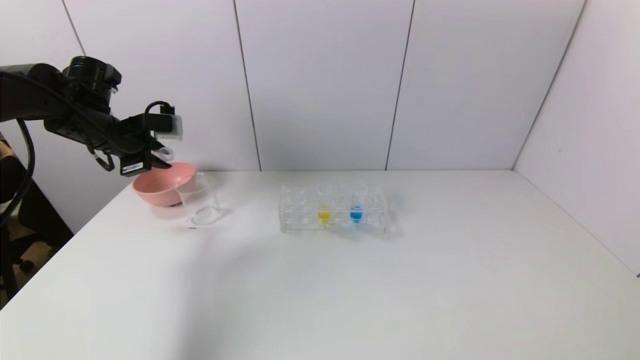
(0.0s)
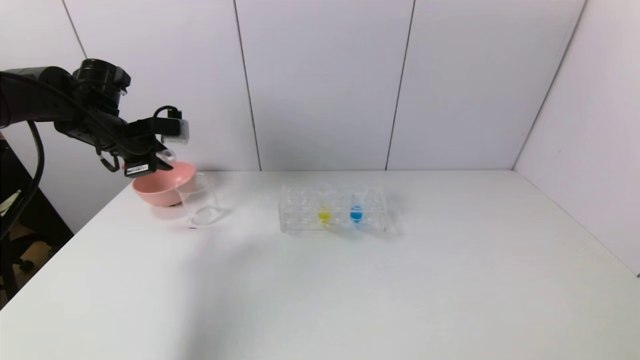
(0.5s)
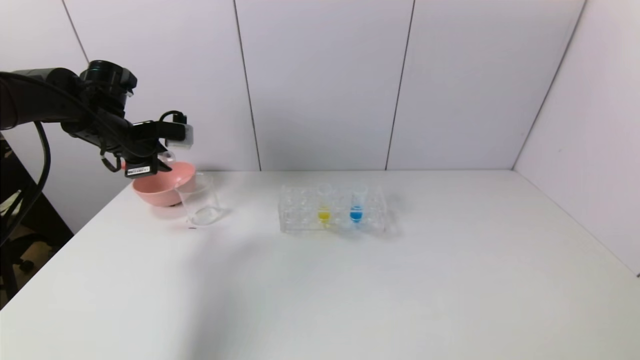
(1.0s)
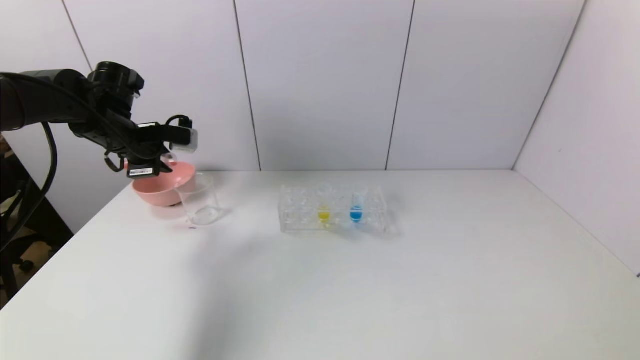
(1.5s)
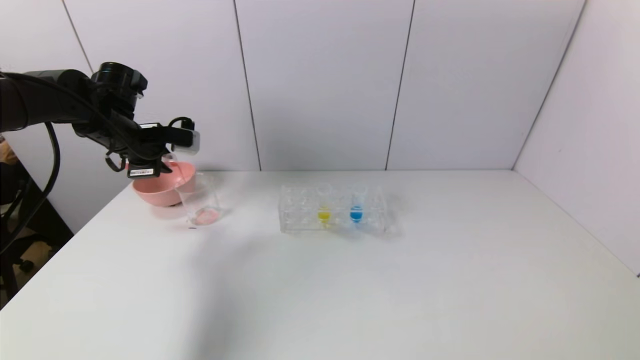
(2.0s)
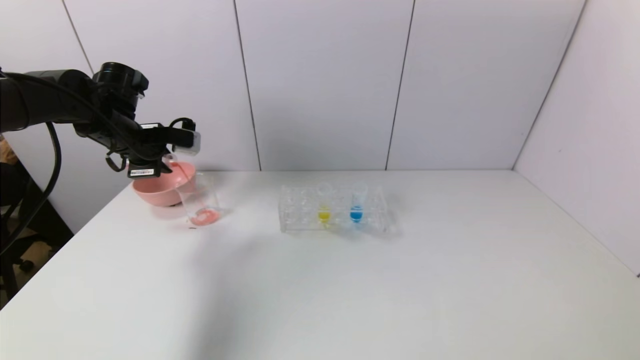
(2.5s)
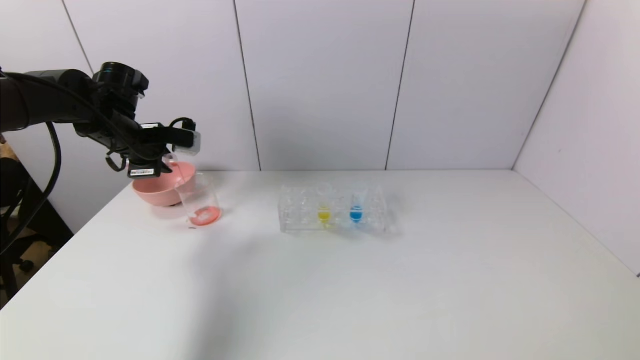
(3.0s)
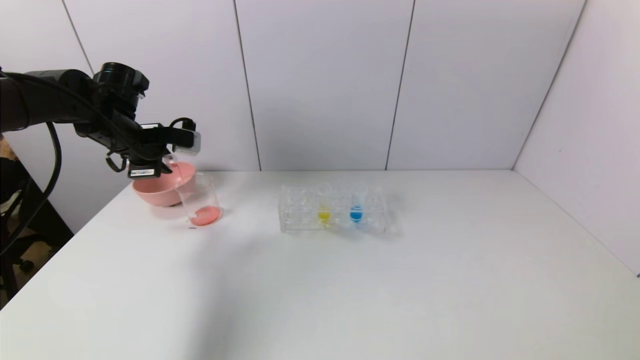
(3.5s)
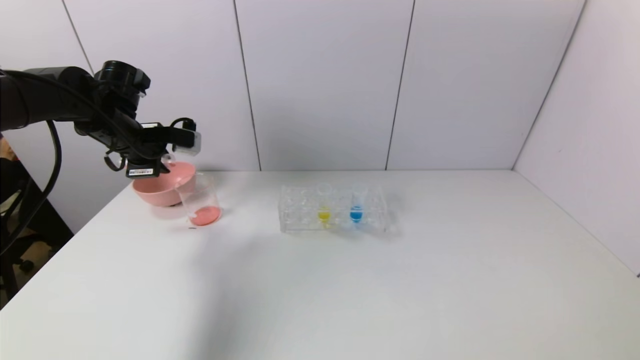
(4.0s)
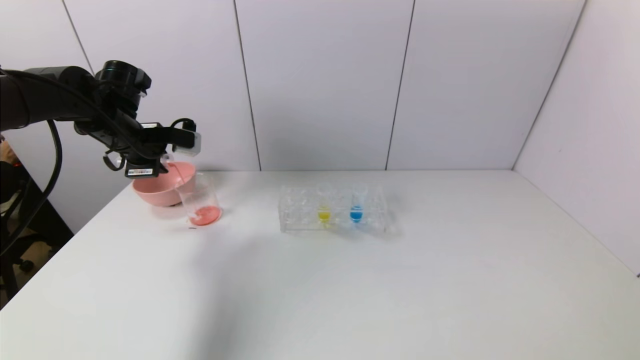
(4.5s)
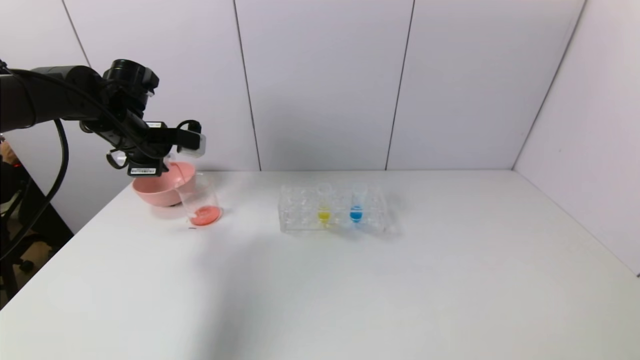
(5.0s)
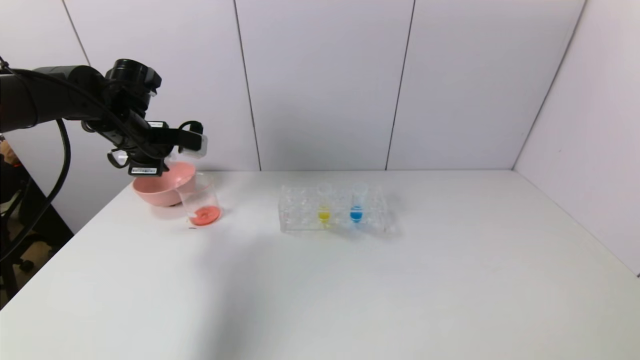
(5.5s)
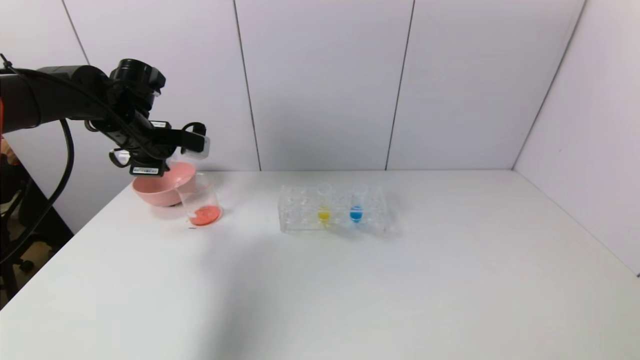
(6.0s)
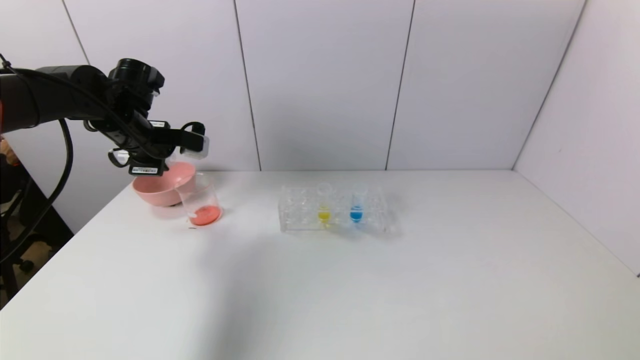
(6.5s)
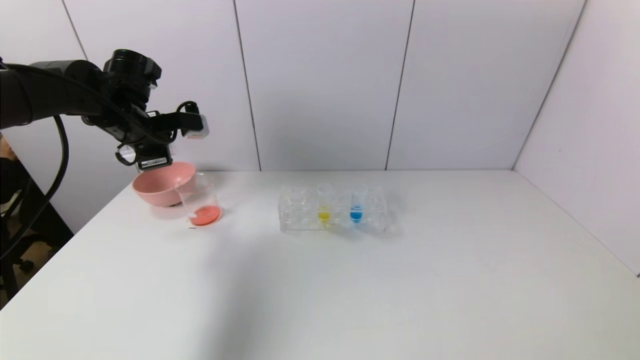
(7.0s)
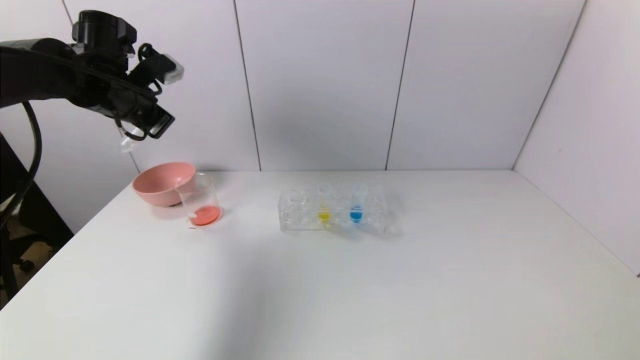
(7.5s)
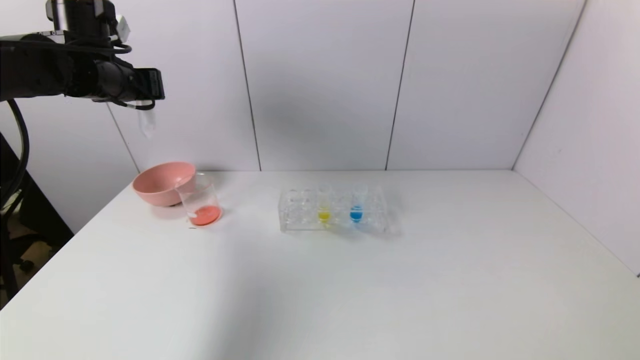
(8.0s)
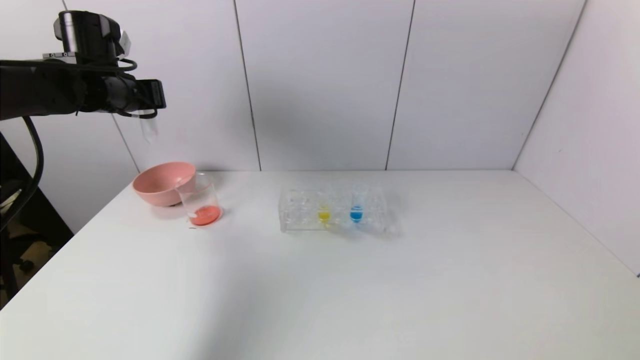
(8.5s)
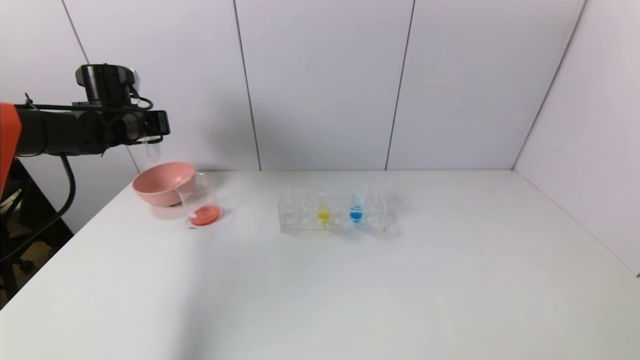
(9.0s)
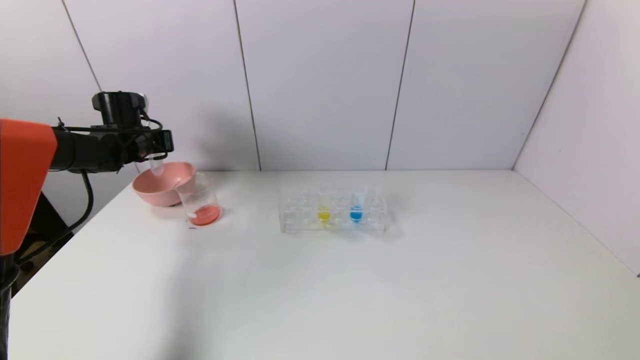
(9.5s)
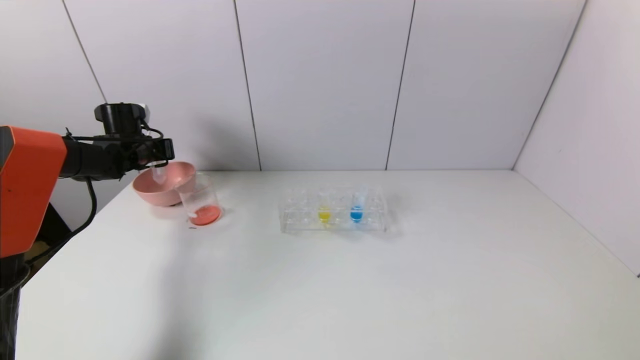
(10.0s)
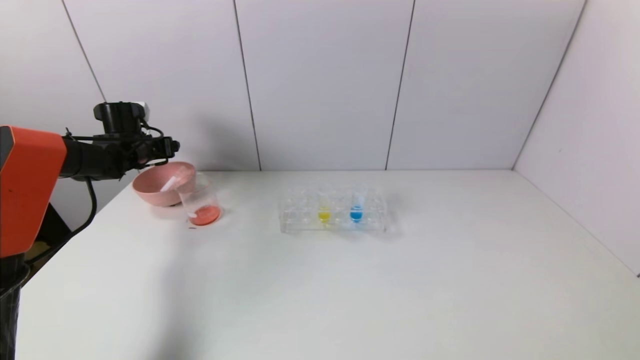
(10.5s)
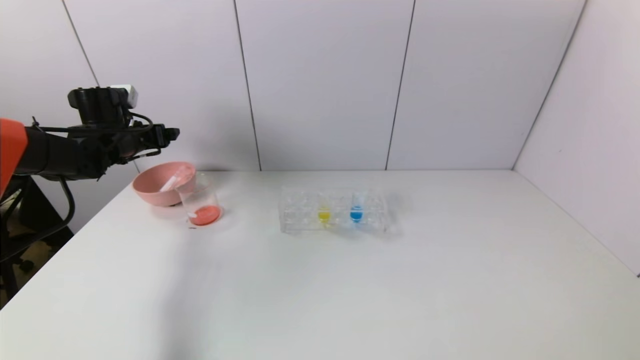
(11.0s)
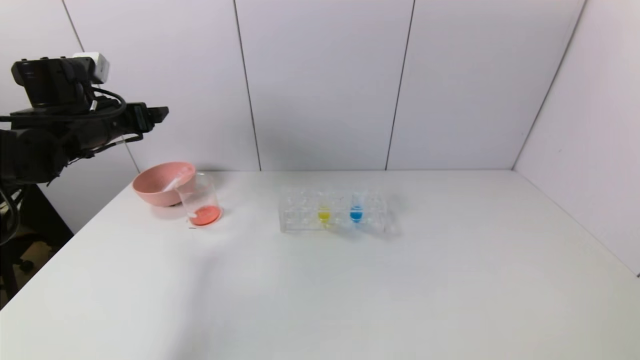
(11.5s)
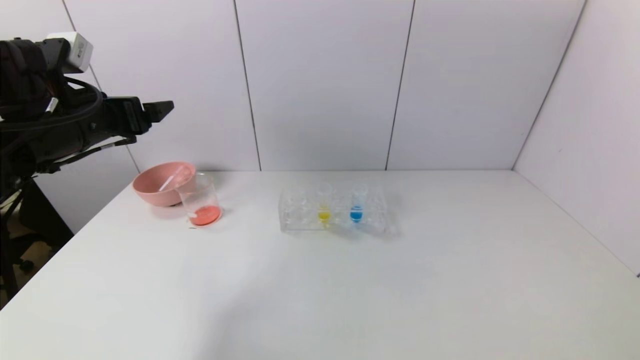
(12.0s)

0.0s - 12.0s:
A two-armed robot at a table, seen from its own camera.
Task of the whole recording: pick up the test tube with red pigment and the test tube with blue pigment by grippers and pour them into the container.
Step, 0.0s - 7.0s: Pour the red reagent into the graduated cylinder with the left gripper.
Step, 7.5s - 11.0s: Place the test tube into the bowl with the left gripper.
0.0s - 2.0s: The grippers move only a little.
2.0s - 4.0s: Neither gripper changes place.
4.0s - 6.0s: The grippers move only a little.
6.0s - 8.0s: The left gripper heads upward, covering roughly 10 cm.
8.0s - 10.0s: The left gripper goes some 20 cm downward, forward and to the left.
10.0s - 12.0s: The left gripper moves backward, upward and to the right, roughly 25 cm, and opens.

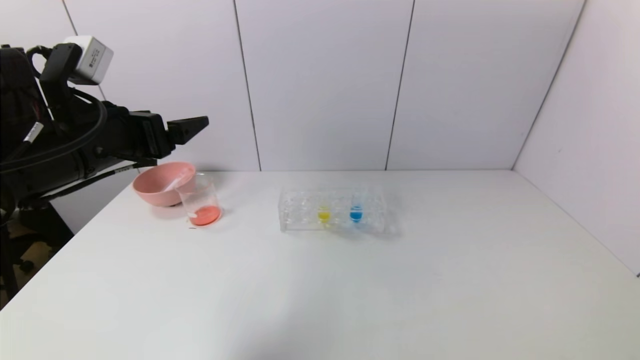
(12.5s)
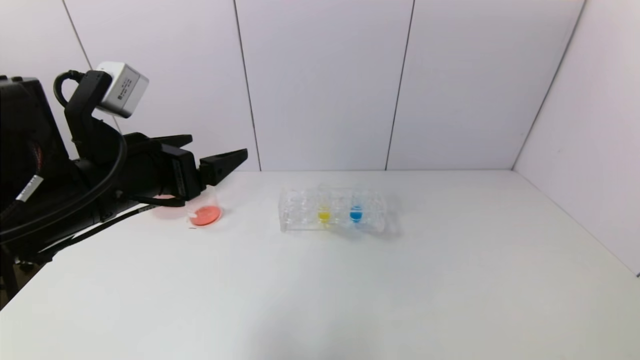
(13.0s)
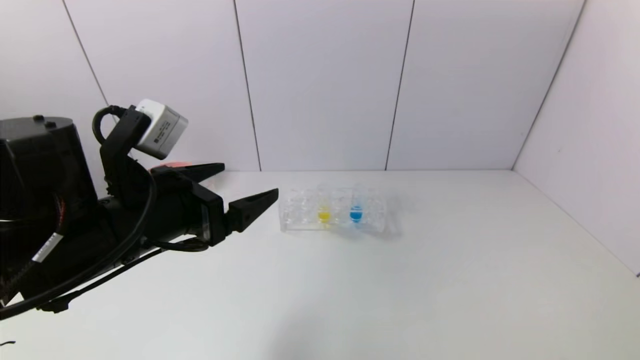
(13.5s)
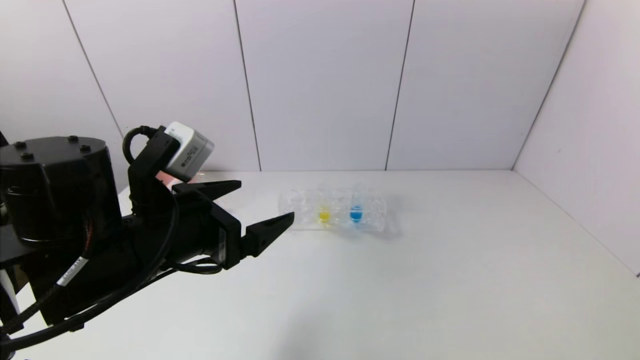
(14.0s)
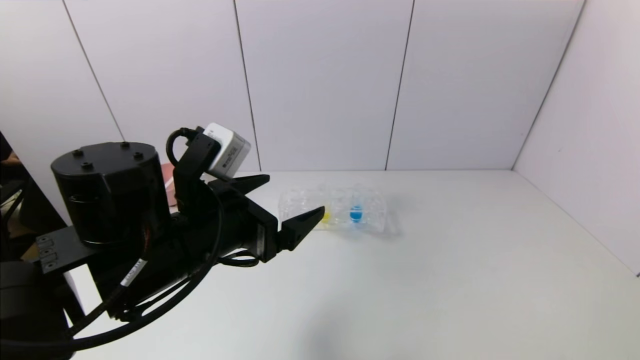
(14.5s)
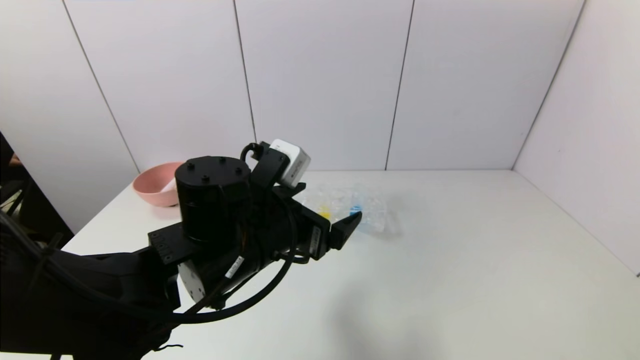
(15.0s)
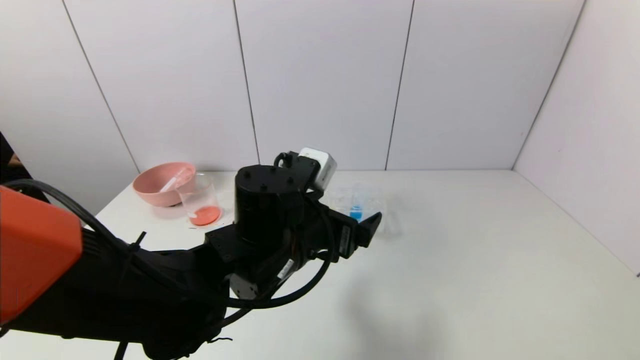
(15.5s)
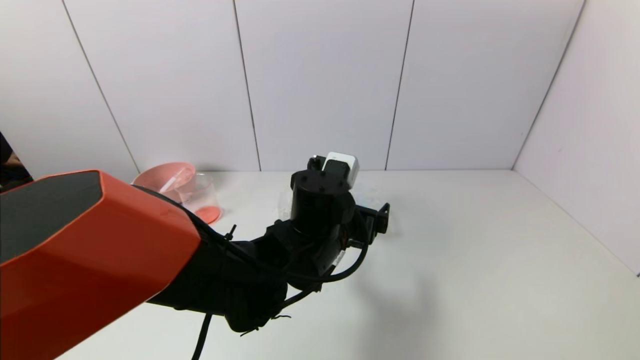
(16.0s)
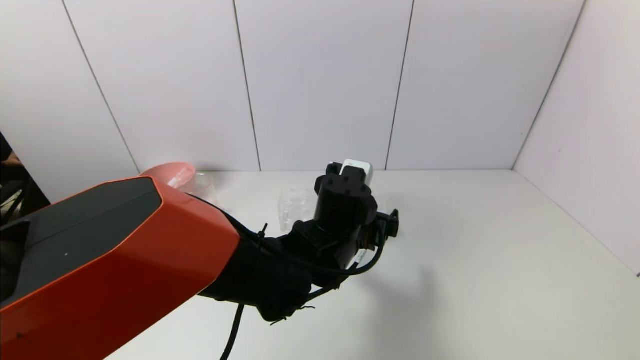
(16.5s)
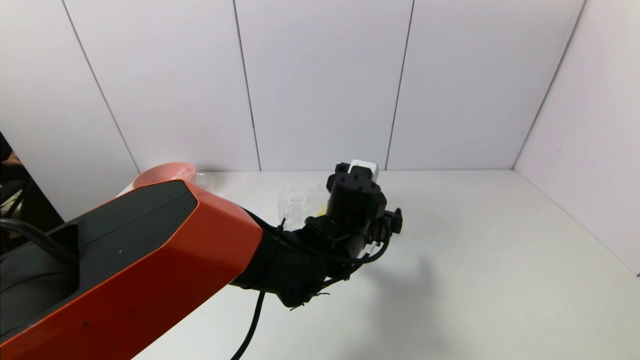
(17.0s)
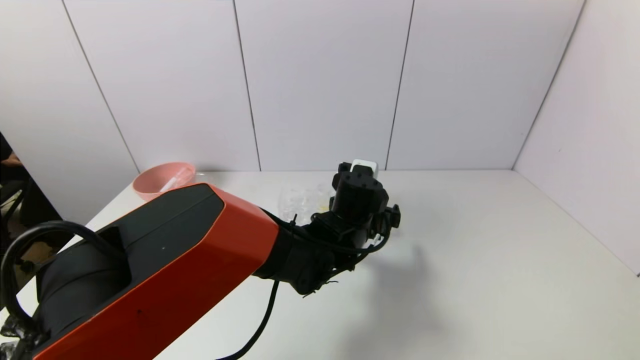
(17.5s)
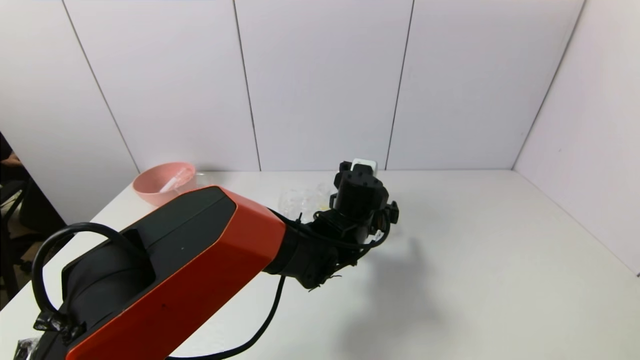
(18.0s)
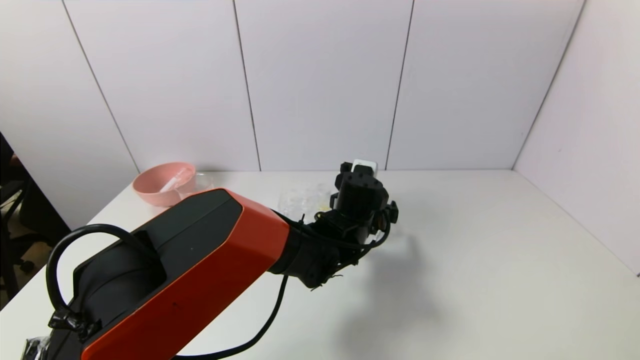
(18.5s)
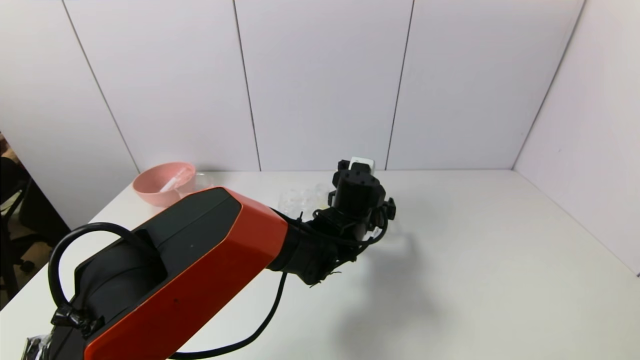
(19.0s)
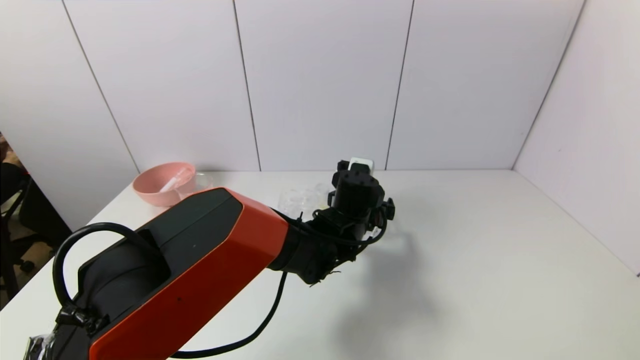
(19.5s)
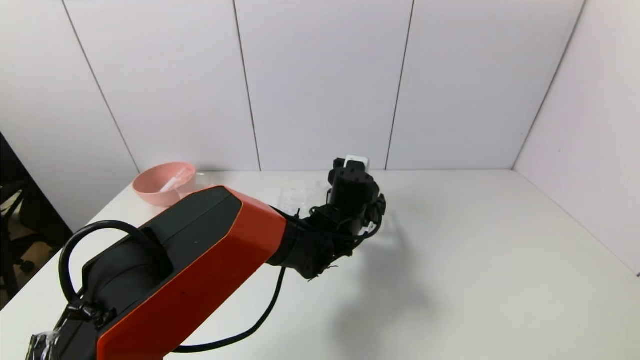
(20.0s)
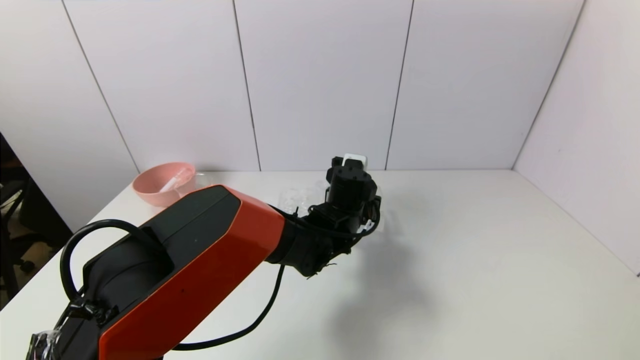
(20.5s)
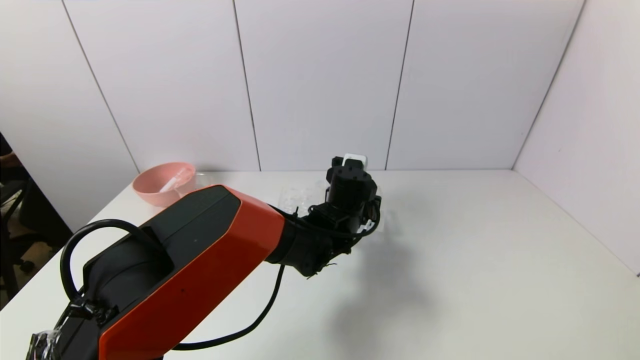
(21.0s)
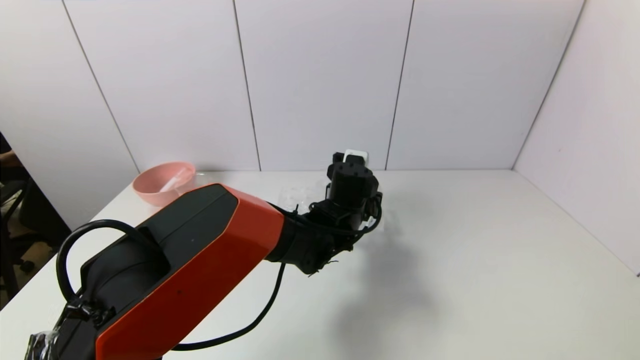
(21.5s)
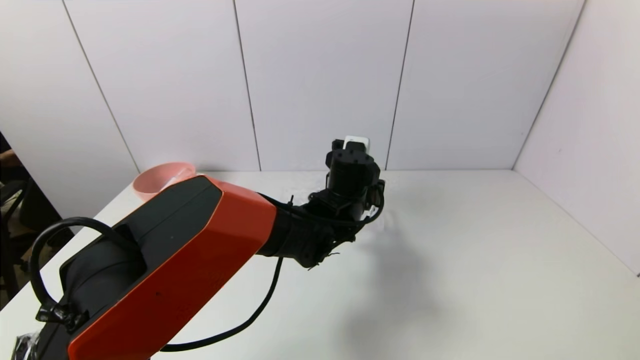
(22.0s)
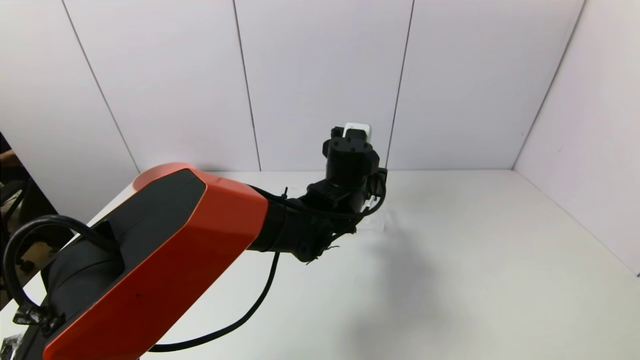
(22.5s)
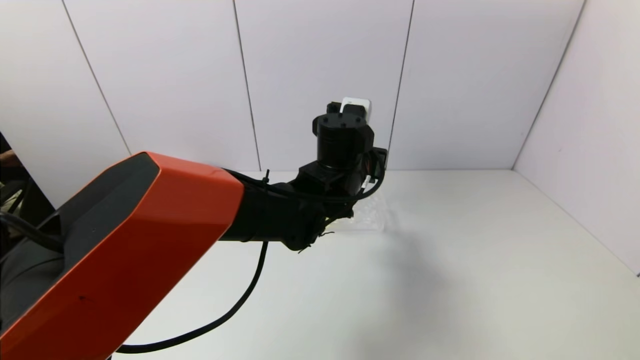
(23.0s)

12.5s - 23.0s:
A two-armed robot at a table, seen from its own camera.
Task of the whole recording: pick up the test tube with red pigment and the test tube with blue pigment by grippers and pour them into the container.
Step, 12.5s - 21.0s: Grasp the blue reagent with the left gripper.
12.5s - 14.5s: The left gripper shifts approximately 15 cm to the right and downward.
14.5s - 16.5s: The left gripper heads to the right, forward and downward, covering roughly 20 cm.
16.5s - 19.0s: The left gripper moves forward, some 5 cm.
19.0s - 21.0s: The left gripper closes.
21.0s - 23.0s: The left gripper moves upward, roughly 10 cm.
